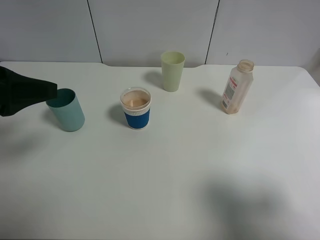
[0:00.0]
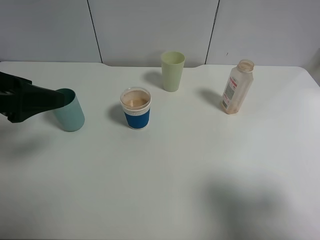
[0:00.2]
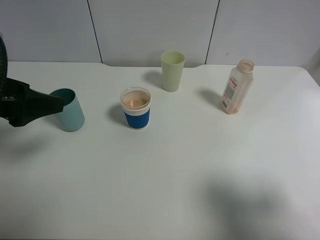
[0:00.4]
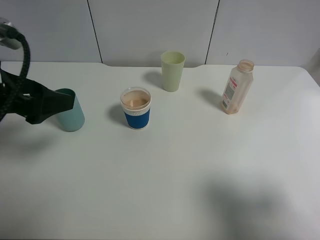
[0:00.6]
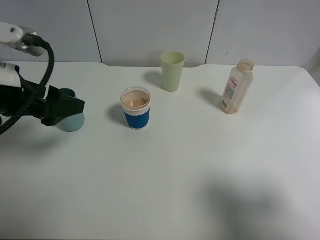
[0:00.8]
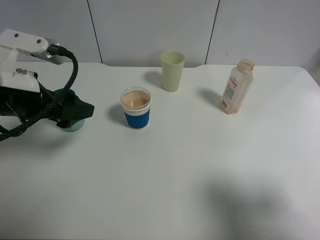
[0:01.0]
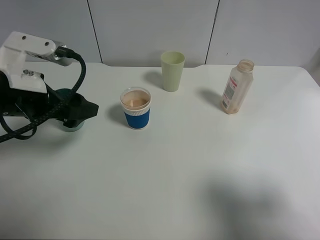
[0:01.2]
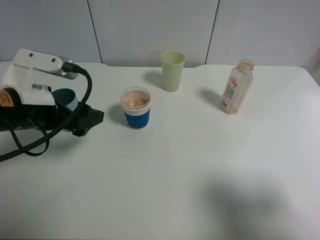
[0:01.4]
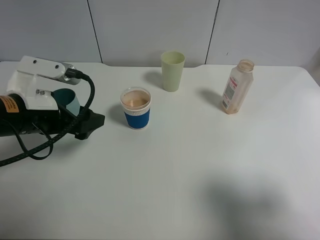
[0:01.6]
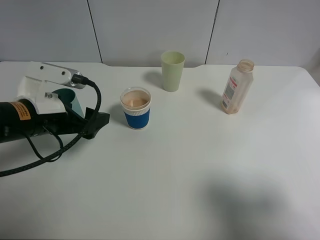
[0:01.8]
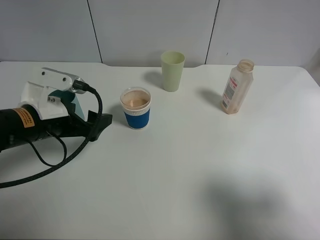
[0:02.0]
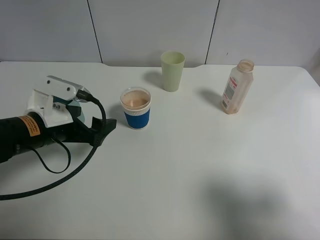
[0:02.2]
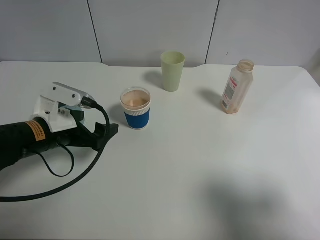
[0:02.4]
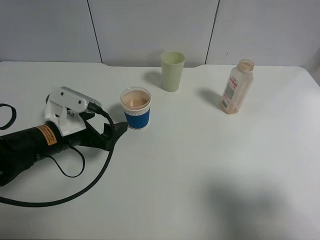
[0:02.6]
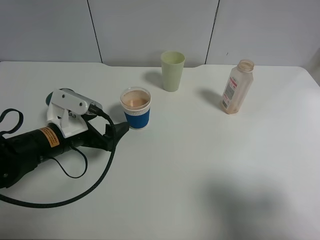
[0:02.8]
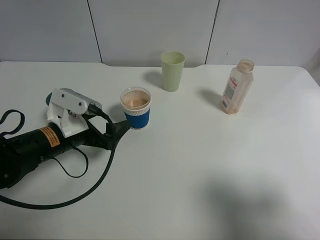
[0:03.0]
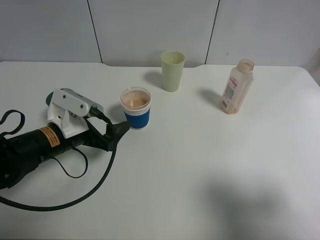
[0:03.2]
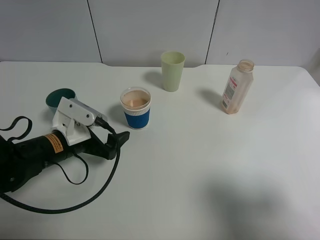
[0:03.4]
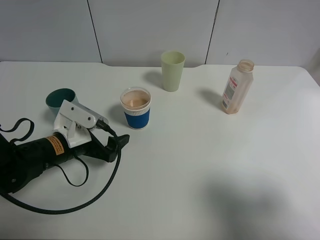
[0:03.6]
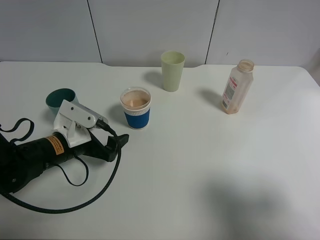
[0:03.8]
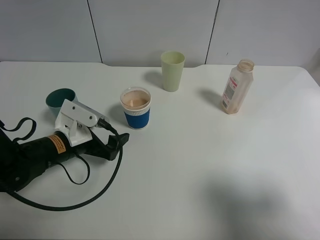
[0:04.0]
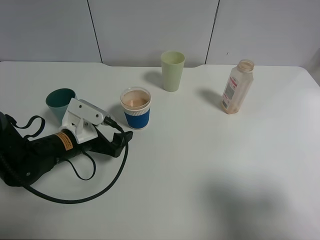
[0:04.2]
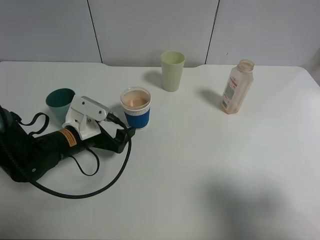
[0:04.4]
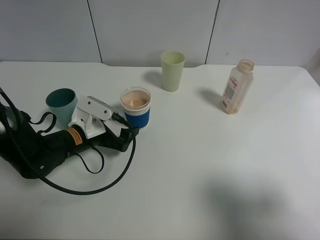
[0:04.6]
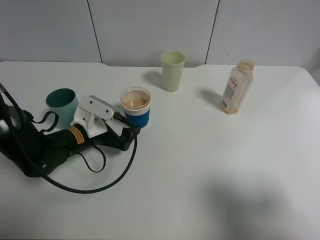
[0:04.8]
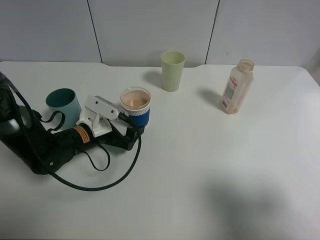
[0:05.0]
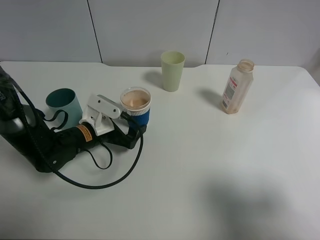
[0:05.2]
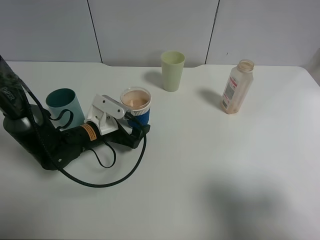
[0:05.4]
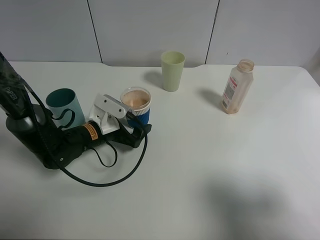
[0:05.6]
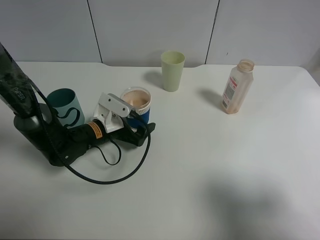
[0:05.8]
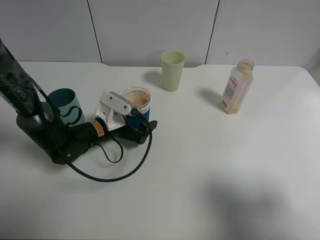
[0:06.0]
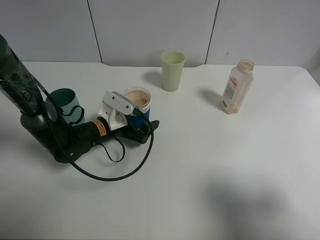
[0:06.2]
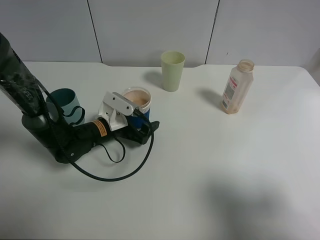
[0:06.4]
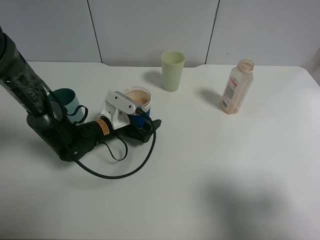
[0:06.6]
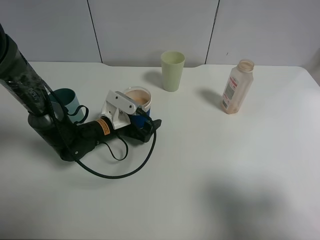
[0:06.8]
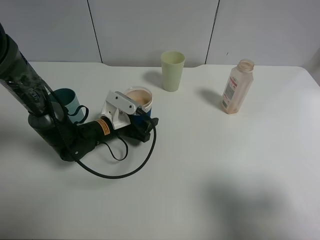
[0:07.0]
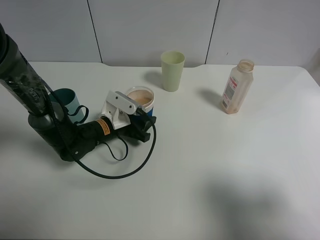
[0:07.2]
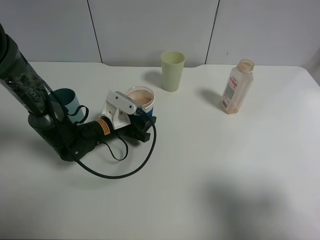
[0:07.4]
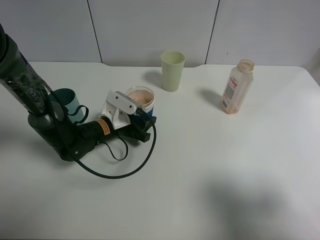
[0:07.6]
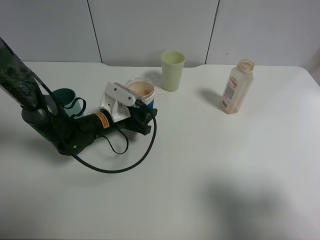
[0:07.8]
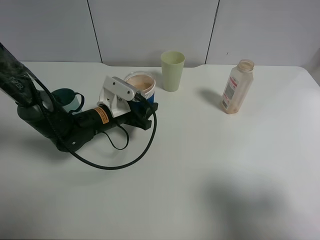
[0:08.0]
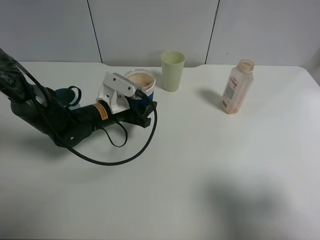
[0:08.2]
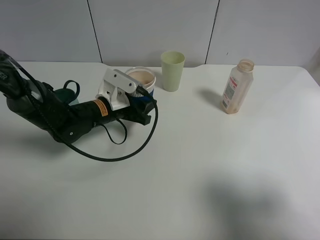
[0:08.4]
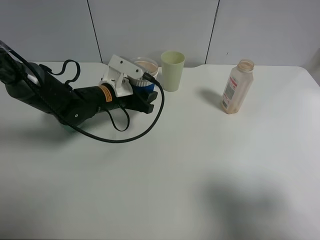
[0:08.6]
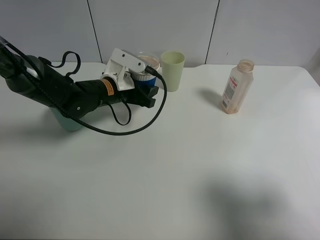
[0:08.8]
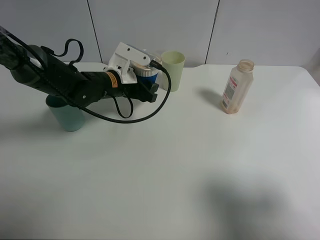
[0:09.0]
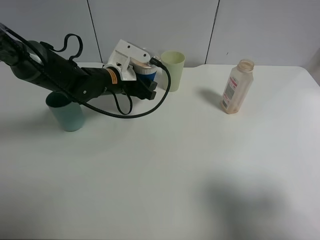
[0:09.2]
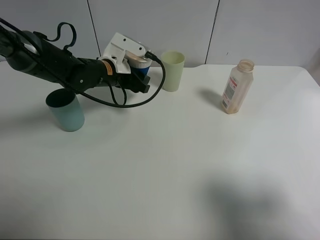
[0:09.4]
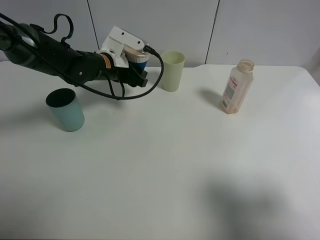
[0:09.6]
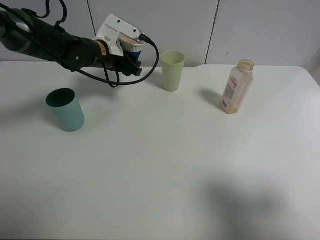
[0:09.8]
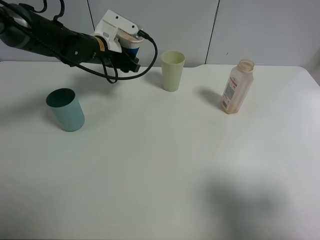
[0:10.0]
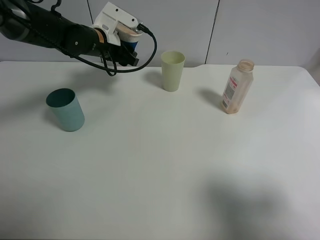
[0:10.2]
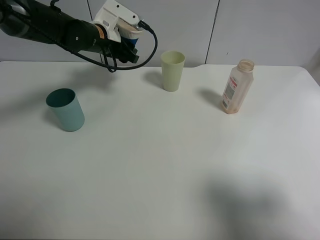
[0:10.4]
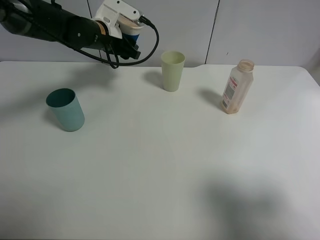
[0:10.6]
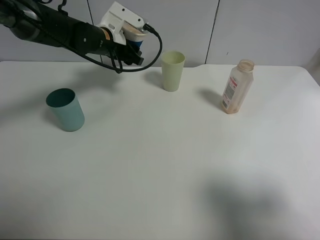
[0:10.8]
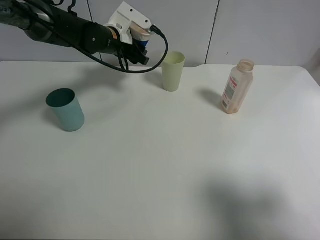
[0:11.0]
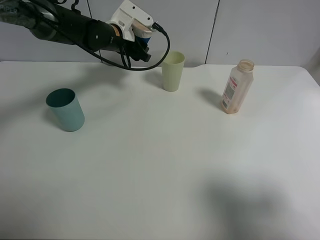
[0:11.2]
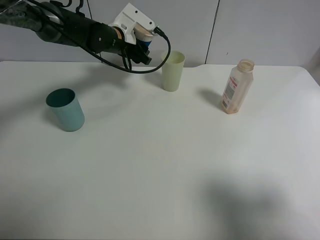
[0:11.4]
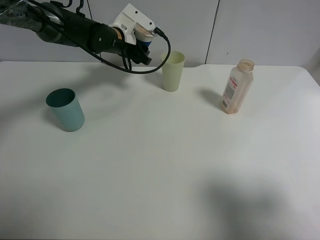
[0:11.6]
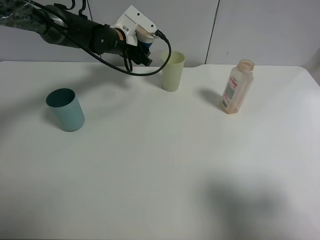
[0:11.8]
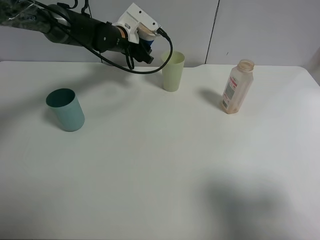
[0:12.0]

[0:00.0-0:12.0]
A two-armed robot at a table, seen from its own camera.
Task of the whole recording: use a clamp to hold the bottle of the drink, pour the beverage into a random cup, then clamp the cup containing the drink and pour the drink into another random cup.
Step, 0:00.0 to 0:07.6: Pick up the paper cup with left gripper.
0:00.0 to 0:01.6: The left gripper heads downward and to the right, covering approximately 10 cm.
0:01.6 to 0:03.0: The left gripper travels downward by approximately 10 cm.
0:03.0 to 0:04.4: The grippers make only small movements.
0:04.4 to 0:06.0: The left gripper changes place by approximately 5 cm.
0:06.0 to 0:07.6: The left gripper closes its fingers.
0:07.6 to 0:09.0: The left gripper shifts about 10 cm upward and forward.
0:09.0 to 0:10.4: The left gripper heads forward and upward, covering about 10 cm.
0:10.4 to 0:12.0: The left gripper shifts by approximately 5 cm.

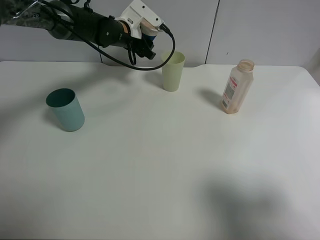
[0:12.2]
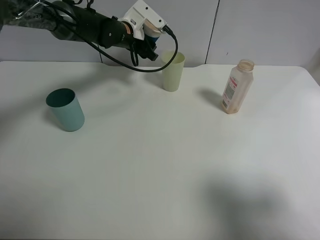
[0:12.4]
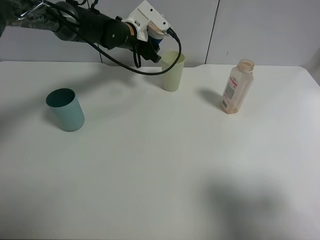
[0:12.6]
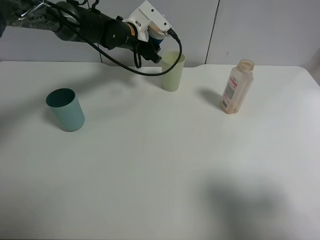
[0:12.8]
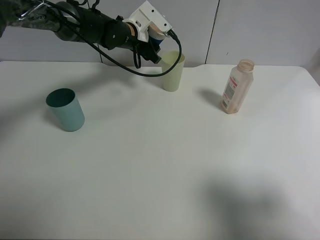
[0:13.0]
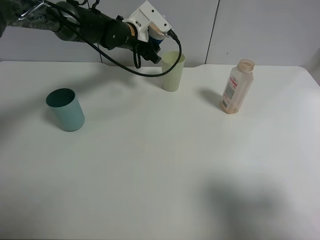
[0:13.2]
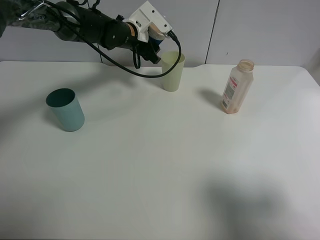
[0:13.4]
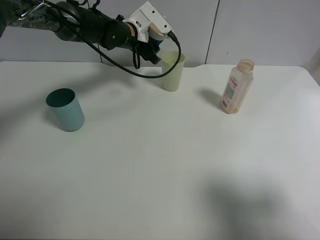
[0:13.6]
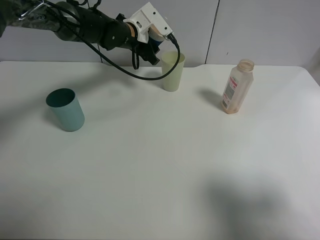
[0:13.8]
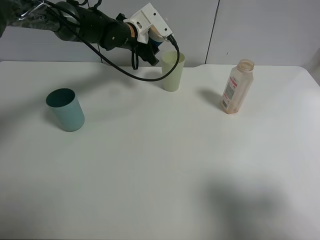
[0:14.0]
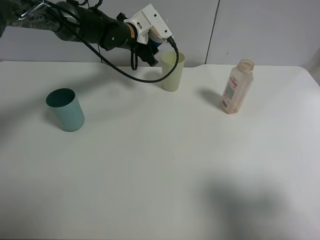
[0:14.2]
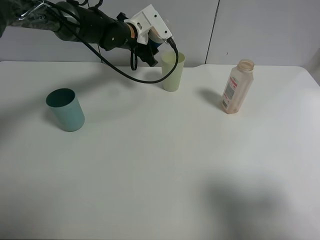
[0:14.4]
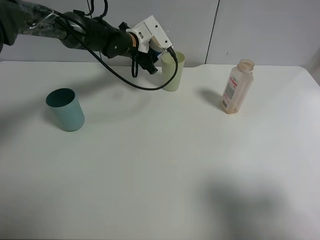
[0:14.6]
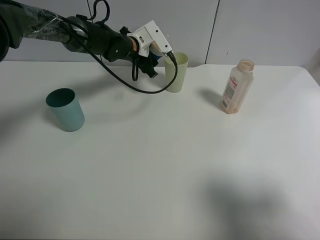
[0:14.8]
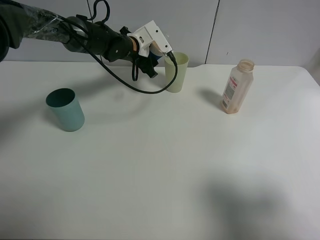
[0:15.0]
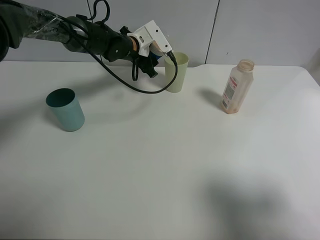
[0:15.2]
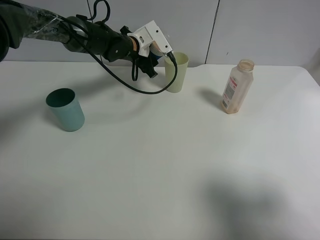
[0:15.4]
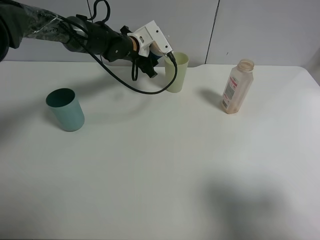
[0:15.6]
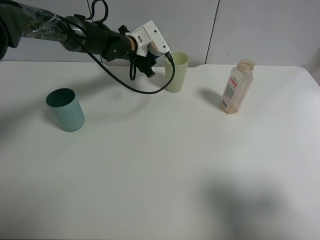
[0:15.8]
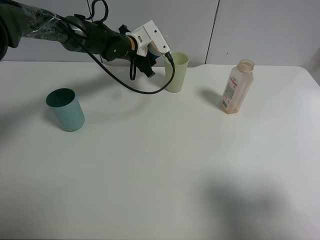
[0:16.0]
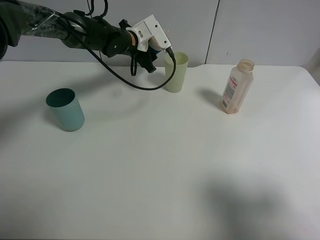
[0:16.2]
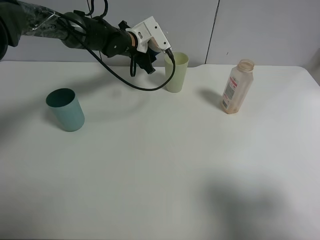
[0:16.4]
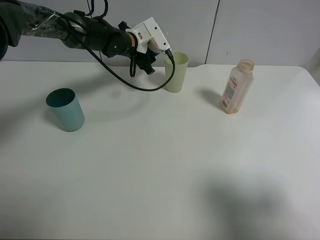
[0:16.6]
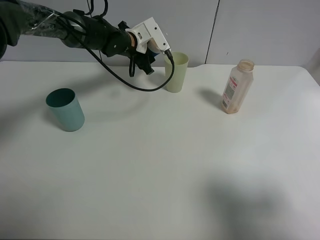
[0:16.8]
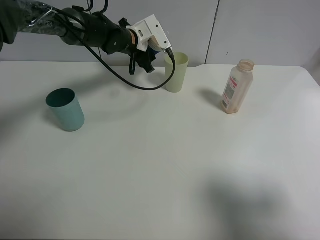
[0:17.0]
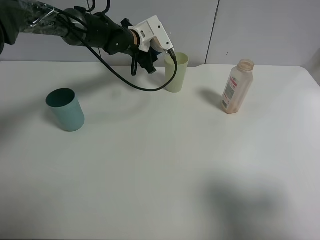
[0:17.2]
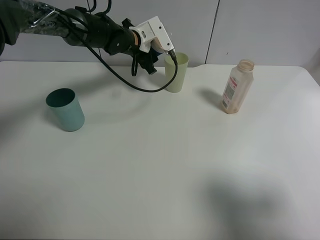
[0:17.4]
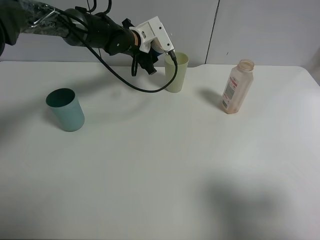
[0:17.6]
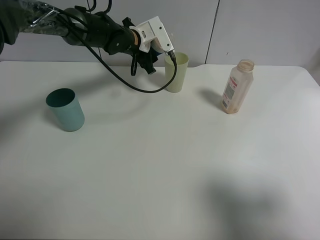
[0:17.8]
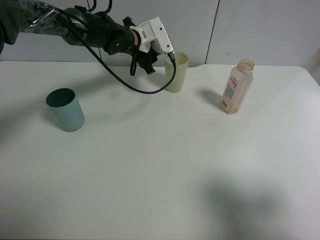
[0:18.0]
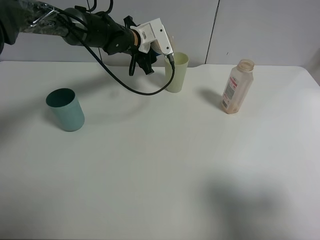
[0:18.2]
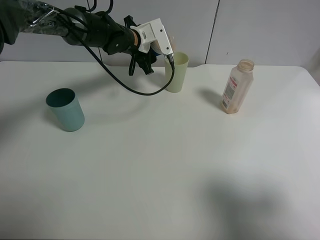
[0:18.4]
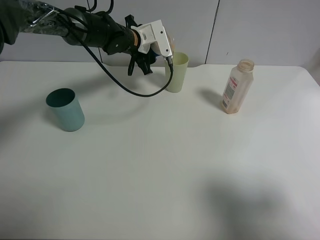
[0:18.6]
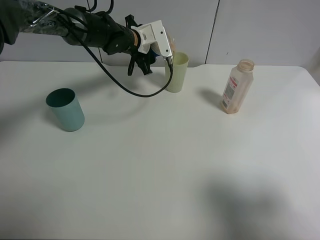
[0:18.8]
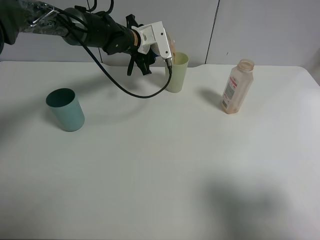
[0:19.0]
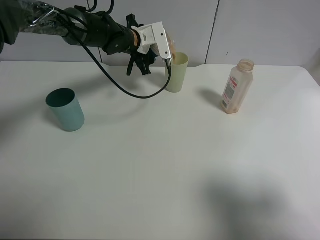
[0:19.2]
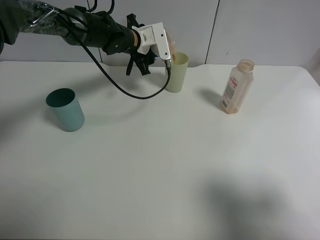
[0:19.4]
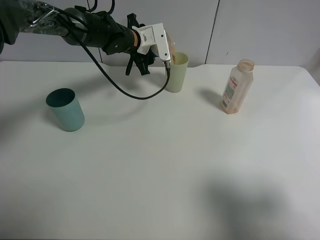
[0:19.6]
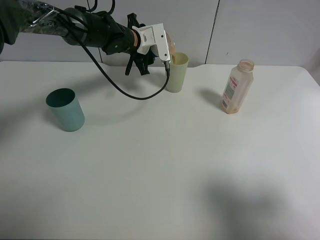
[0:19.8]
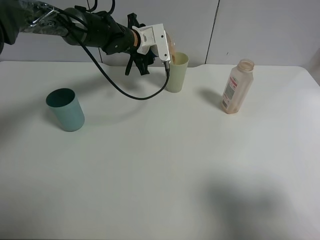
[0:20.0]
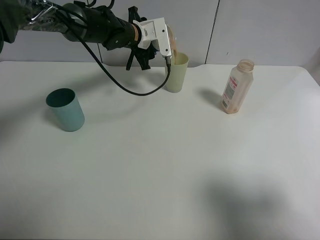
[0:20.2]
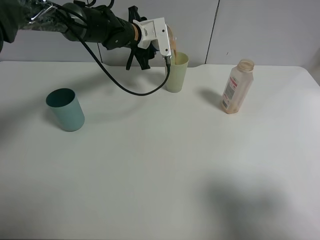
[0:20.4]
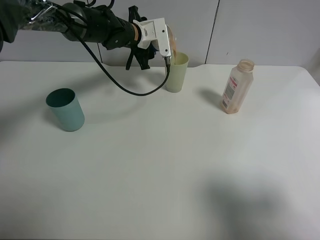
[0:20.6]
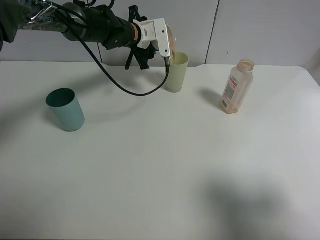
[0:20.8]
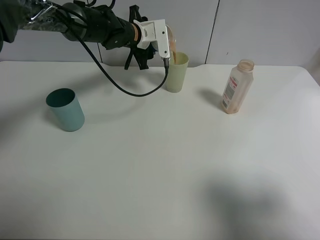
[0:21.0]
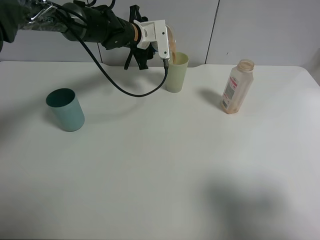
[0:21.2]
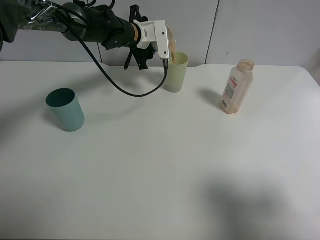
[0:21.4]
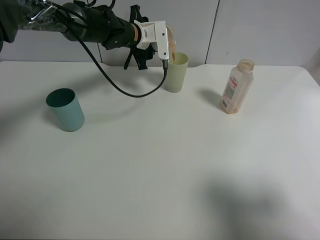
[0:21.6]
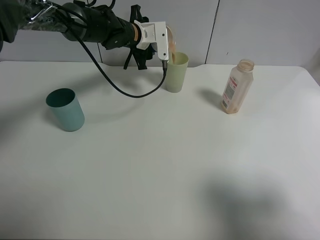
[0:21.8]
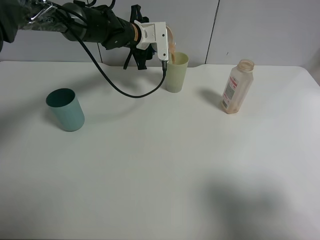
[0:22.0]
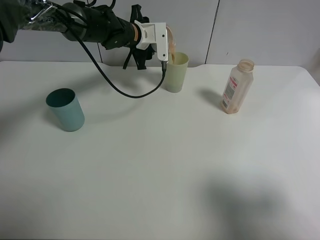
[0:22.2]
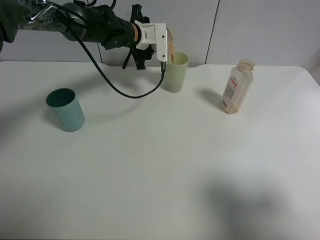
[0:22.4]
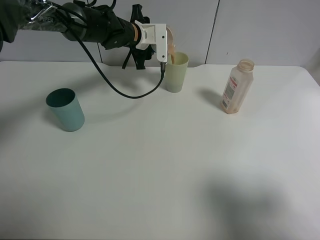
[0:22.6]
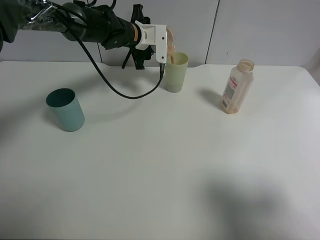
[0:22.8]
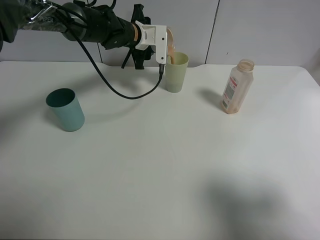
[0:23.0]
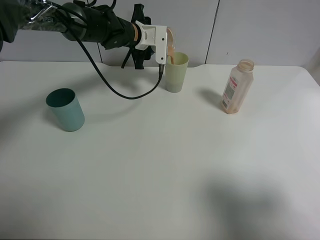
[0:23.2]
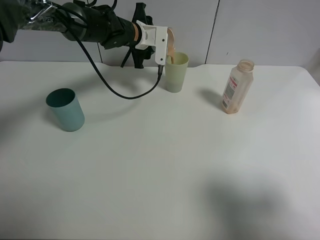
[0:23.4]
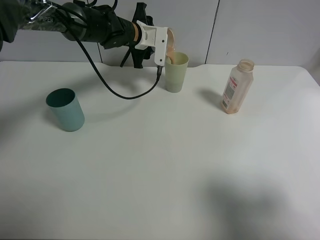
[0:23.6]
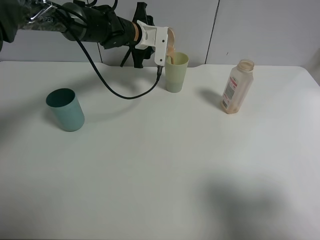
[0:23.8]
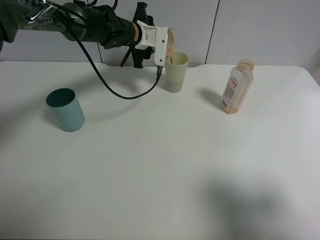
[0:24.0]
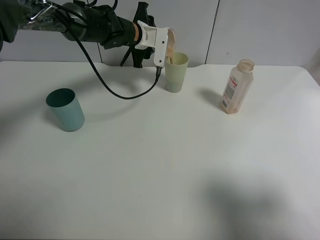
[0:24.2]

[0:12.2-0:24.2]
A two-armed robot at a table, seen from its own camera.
Task of the whole recording: use a clamp to hold the bottle of the drink, pour the beverage into a random cup, then clamp the cup containing the drink and pour the drink into another random cup.
0:12.2 to 0:15.2: The grippers make only small movements.
0:15.2 to 0:16.6: Neither gripper changes place.
0:16.6 to 0:19.8: There are only small adjustments of the grippers.
0:19.8 to 0:22.6: The grippers move only a little.
0:22.6 to 0:24.2: The grippers move only a little.
